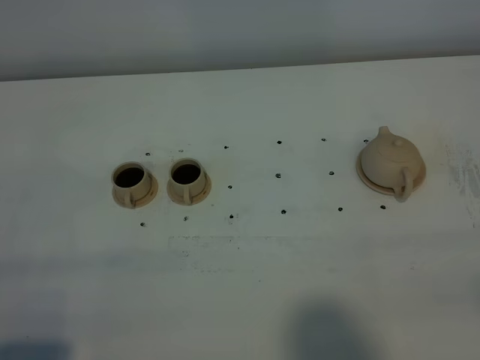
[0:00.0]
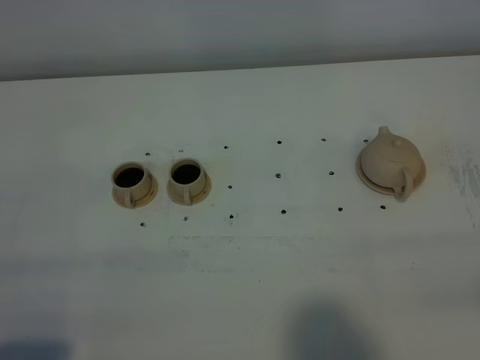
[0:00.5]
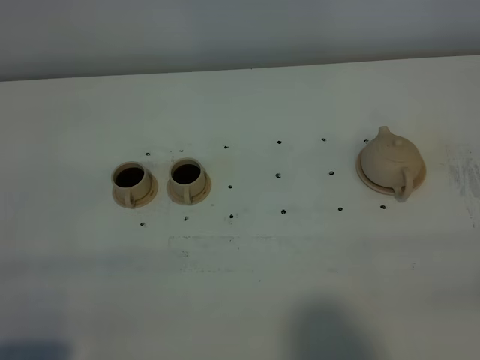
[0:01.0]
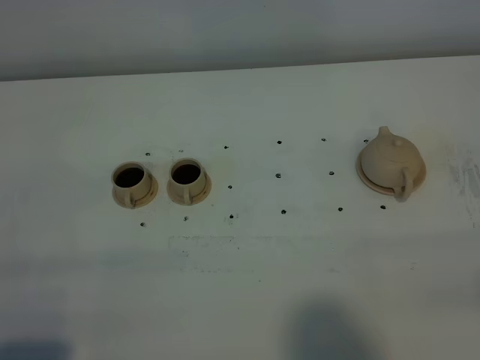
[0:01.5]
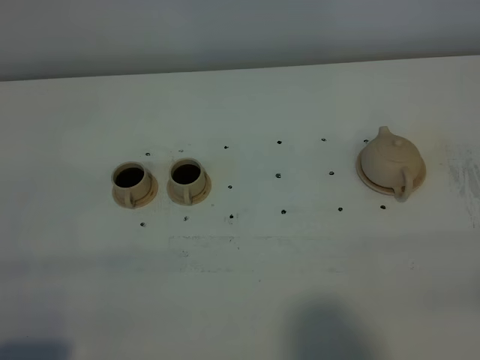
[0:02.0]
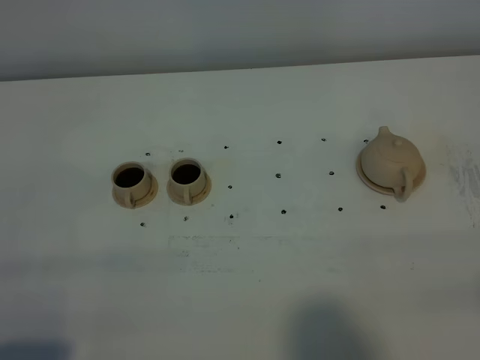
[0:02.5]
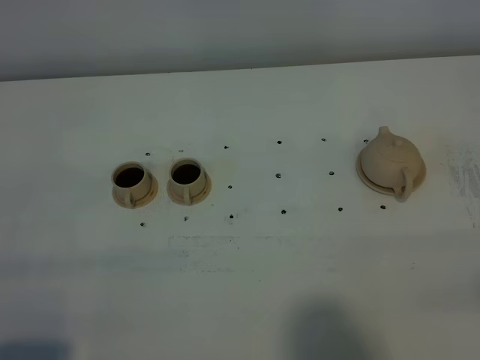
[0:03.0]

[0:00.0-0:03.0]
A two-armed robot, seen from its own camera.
Task of the whole recording: grasp the brown teapot and pour the tea into the two brown teacups one by one, put the brown teapot back in its original place.
0:01.5 to 0:03.0: The two grippers keep their place.
